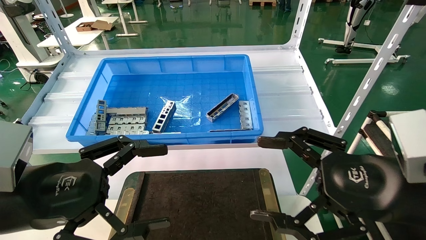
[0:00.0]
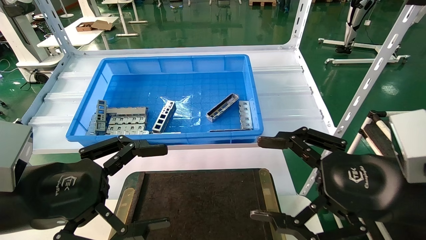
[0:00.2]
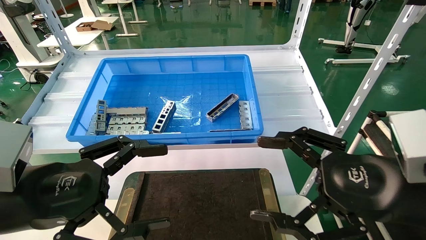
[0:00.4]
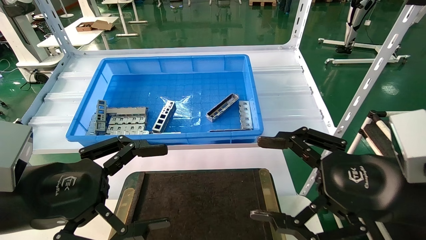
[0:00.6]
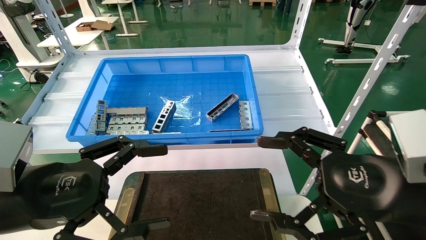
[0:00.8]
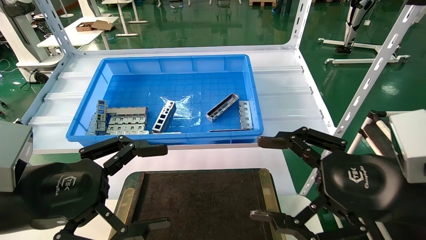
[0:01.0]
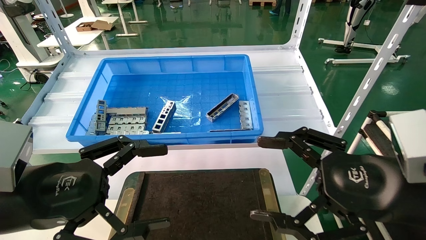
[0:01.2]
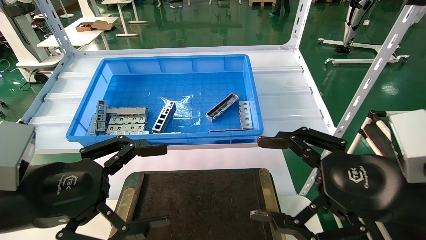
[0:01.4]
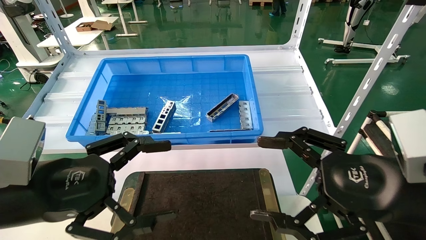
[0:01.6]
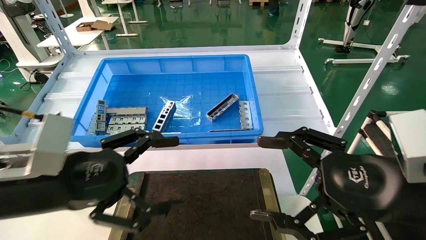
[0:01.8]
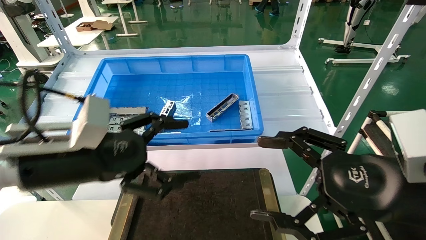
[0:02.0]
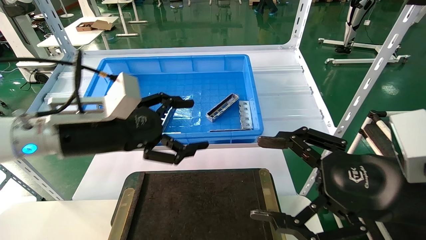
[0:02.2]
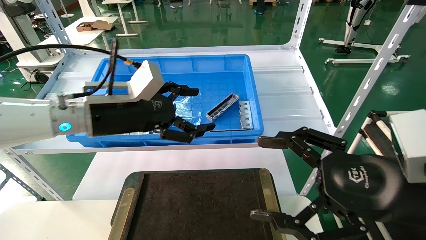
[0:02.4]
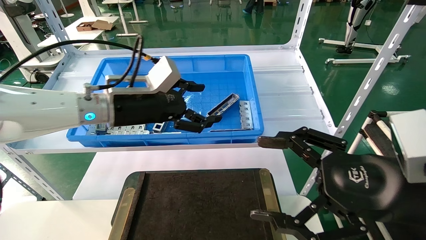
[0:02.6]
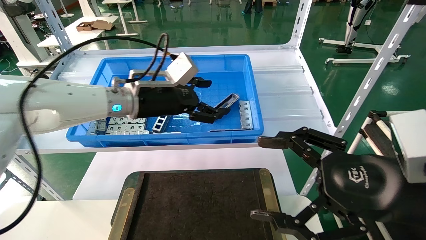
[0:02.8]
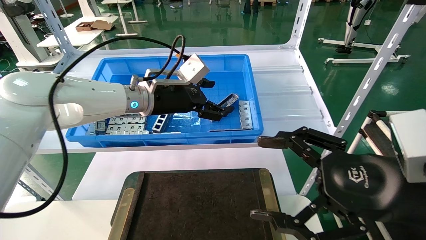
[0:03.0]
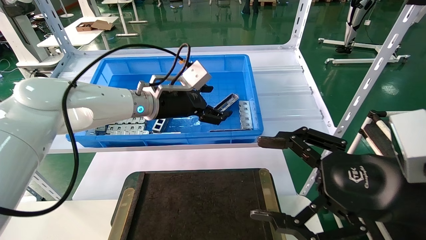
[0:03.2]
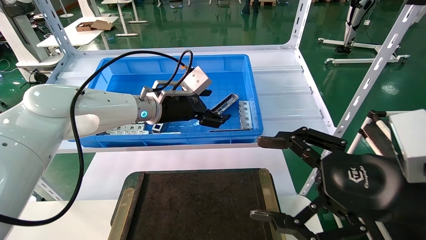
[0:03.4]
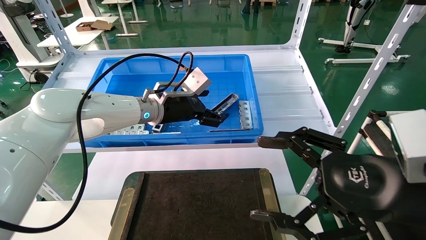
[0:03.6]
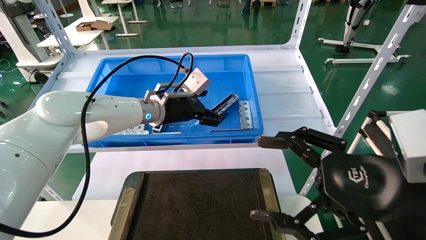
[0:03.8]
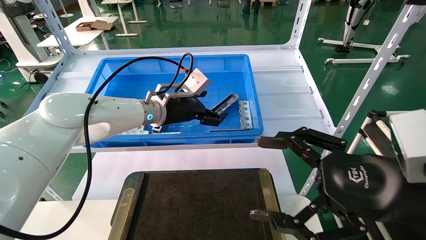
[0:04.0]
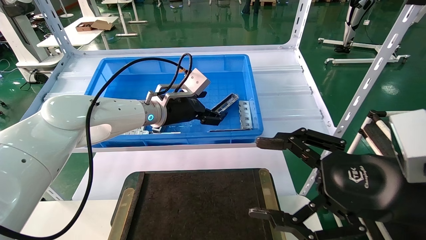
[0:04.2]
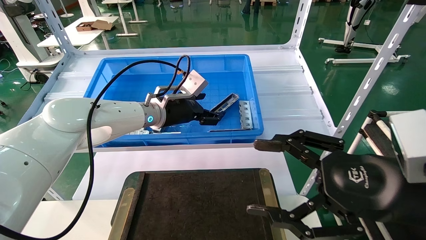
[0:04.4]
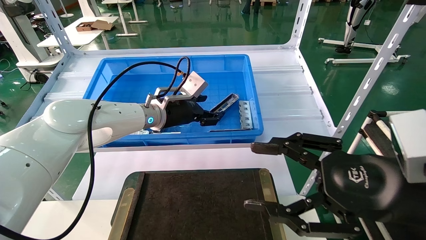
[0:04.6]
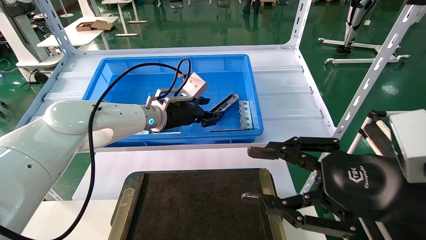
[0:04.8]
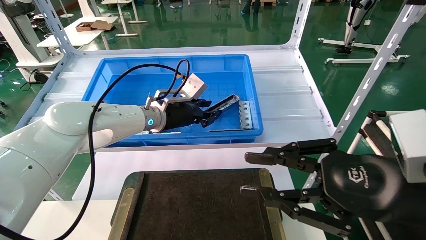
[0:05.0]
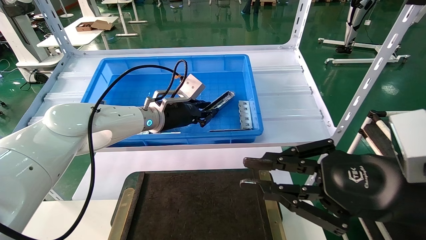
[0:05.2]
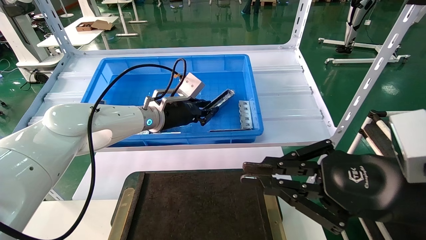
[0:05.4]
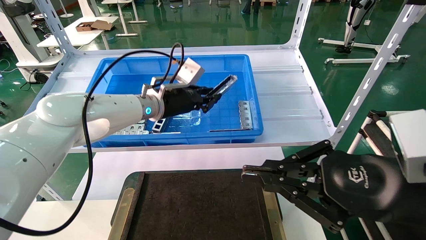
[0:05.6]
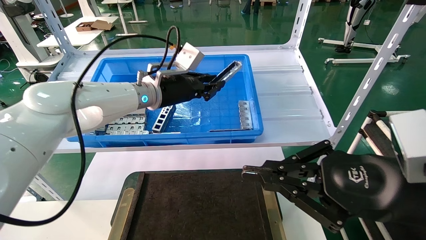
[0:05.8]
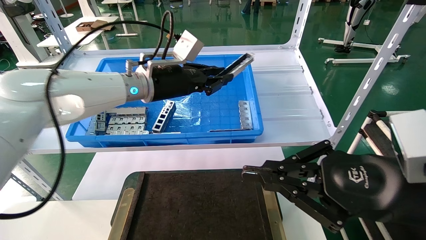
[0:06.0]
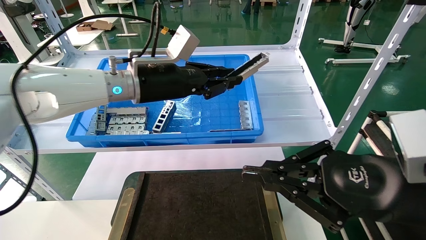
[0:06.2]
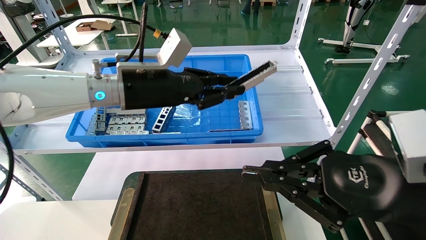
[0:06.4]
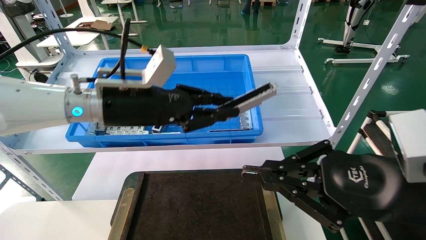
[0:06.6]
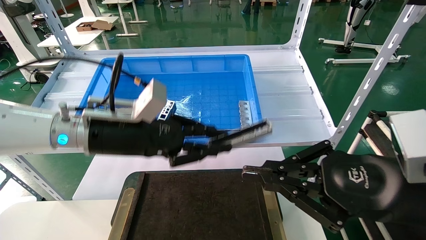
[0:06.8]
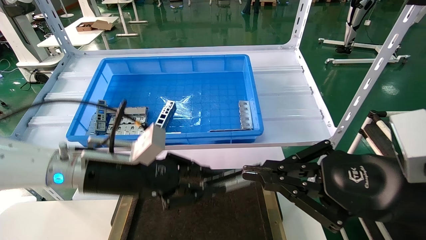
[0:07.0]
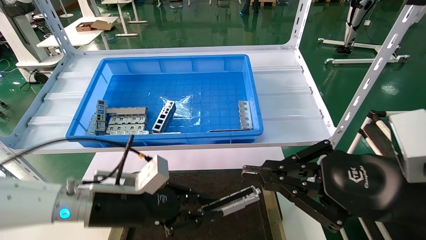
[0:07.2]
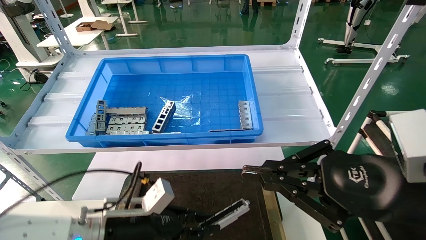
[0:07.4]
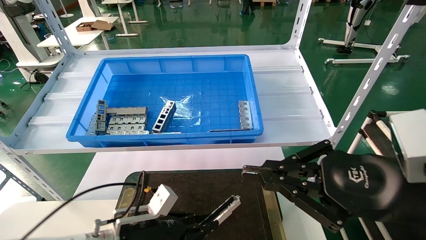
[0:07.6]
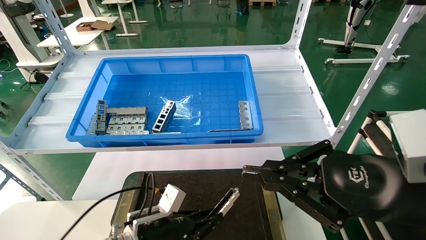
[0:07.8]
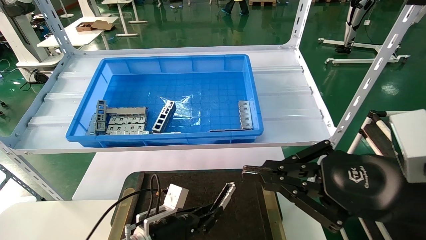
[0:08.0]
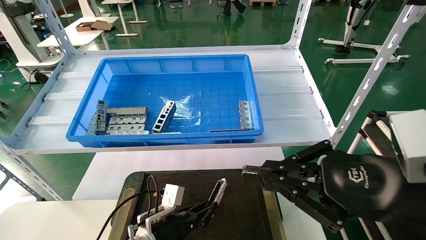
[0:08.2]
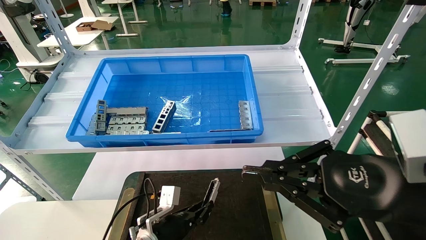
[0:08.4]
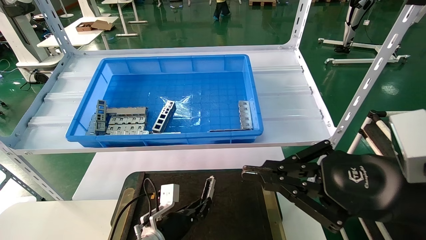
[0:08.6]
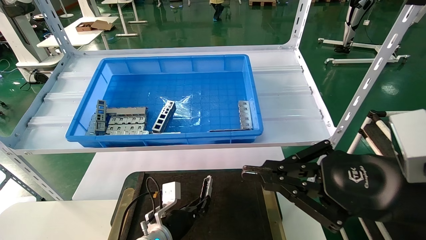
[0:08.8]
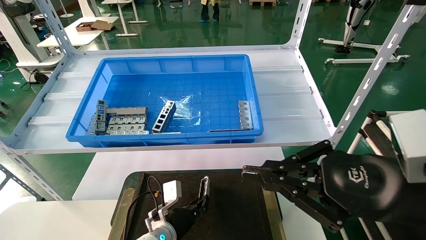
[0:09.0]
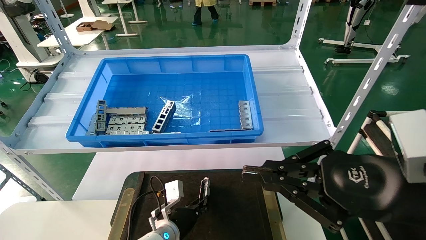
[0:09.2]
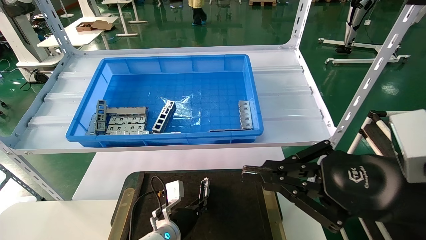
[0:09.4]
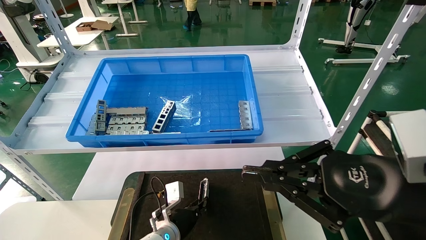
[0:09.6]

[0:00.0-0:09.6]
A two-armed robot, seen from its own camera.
Task of the whole recording: Grasp the part with one hand and place it on the black container.
Step, 0:01.8 to 0:05.8: Pick up the front USB bracket from the feeding area.
0:00.0 to 0:01.6: The grippers stay close to where they were, moving slightly.
0:01.6 to 0:03.2: The left gripper shifts roughly 30 cm forward and to the right.
0:03.2 to 0:04.8: The right gripper closes up; the left gripper closes up.
0:04.8 to 0:06.4: The left gripper shifts about 10 cm backward and upward, and closes, while the right gripper closes.
0:06.4 to 0:08.0: The left gripper shifts some 30 cm downward.
0:08.0 to 0:09.6: The left gripper shifts roughly 5 cm forward.

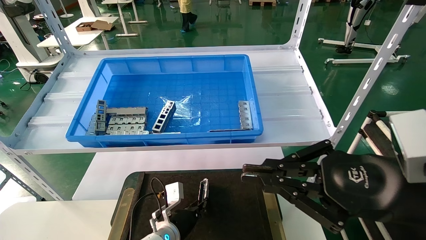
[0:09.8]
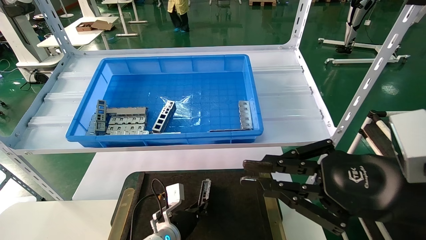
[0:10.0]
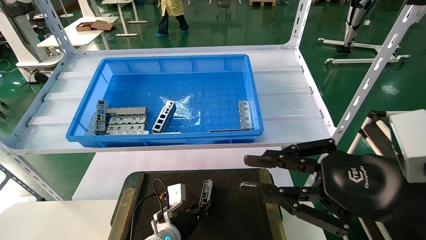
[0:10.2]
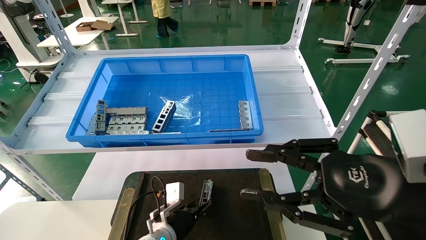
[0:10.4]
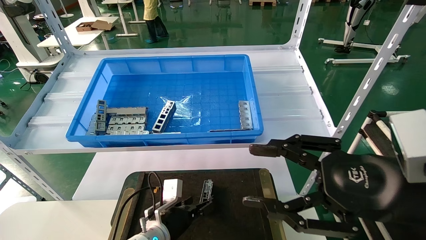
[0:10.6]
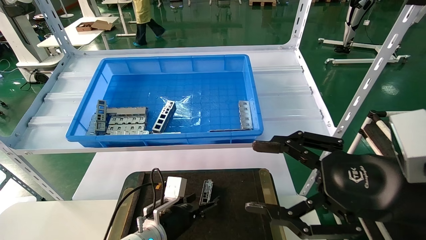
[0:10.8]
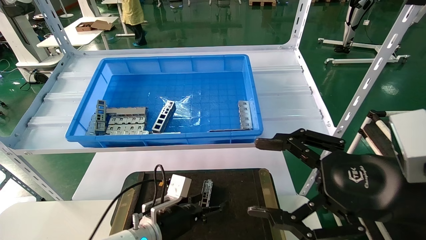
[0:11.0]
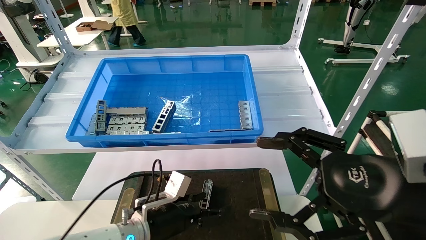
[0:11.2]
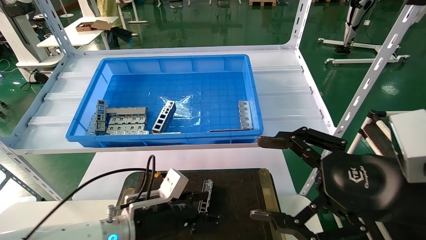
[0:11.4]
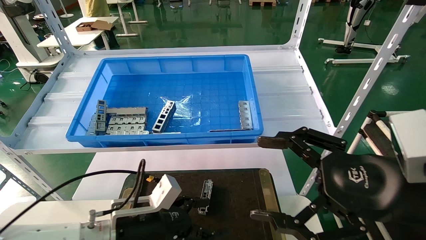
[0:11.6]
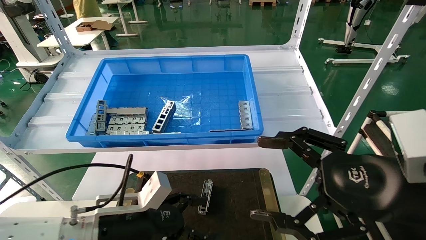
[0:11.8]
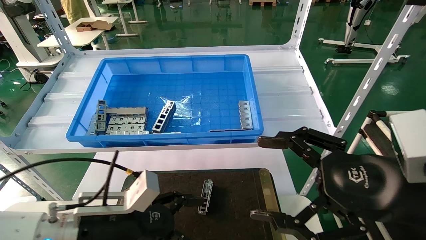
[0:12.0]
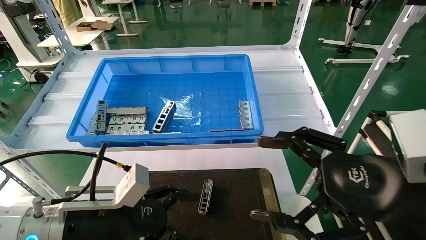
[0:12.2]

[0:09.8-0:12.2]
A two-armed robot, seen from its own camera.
Task of the whole recording: Grasp the part with one hand and place it on the black container.
0:09.8 to 0:11.0: The left gripper goes roughly 5 cm upward, and opens its fingers. The right gripper opens.
0:11.0 to 0:12.2: The left gripper heads upward, backward and to the left, covering approximately 15 cm.
